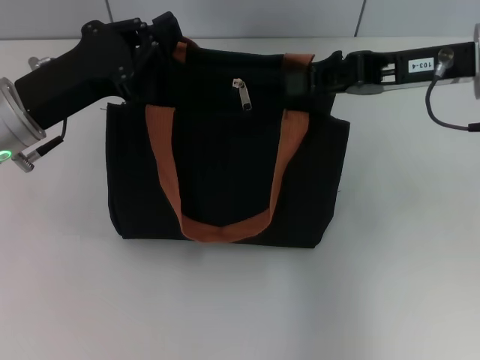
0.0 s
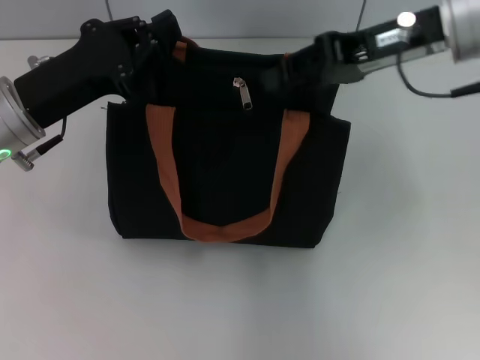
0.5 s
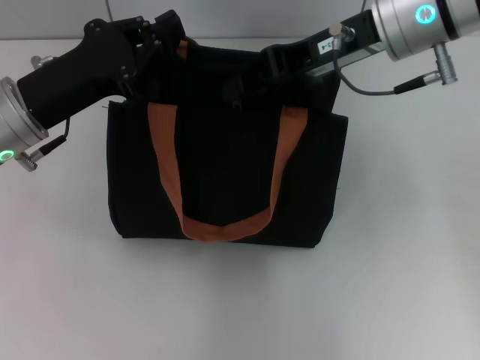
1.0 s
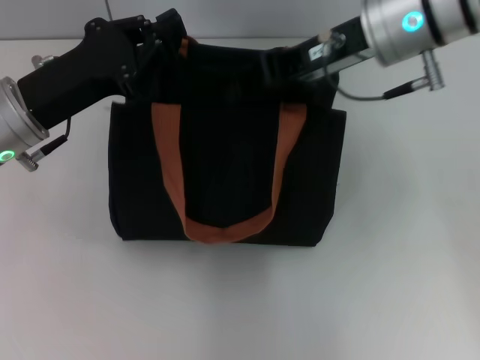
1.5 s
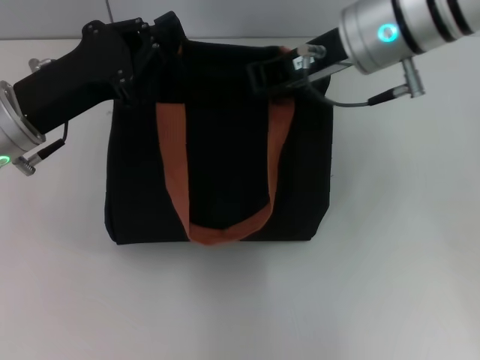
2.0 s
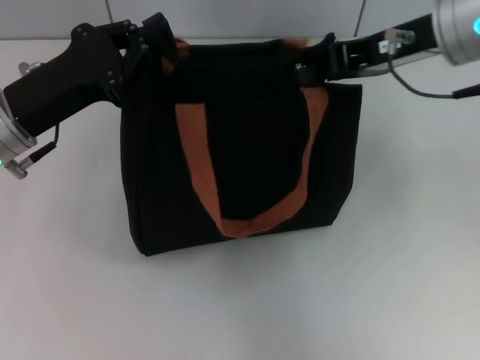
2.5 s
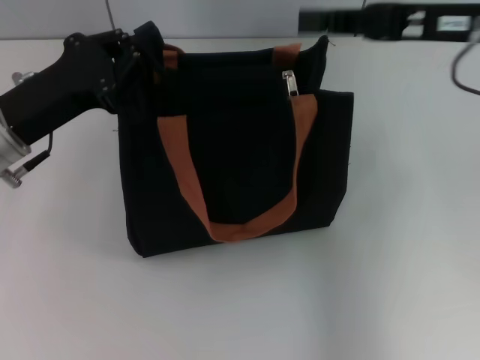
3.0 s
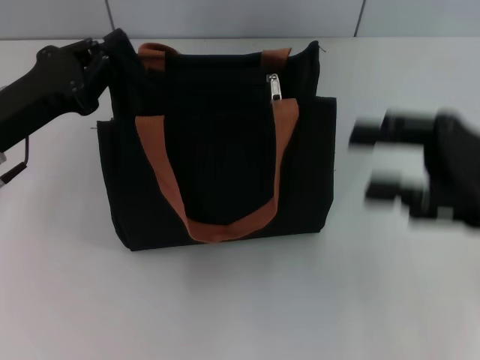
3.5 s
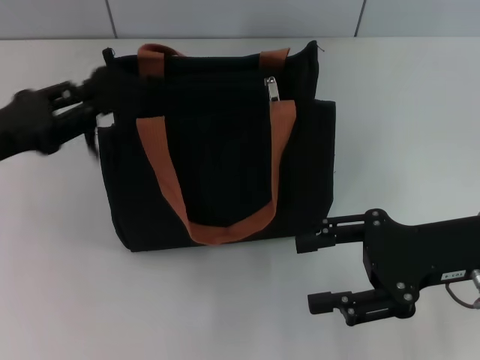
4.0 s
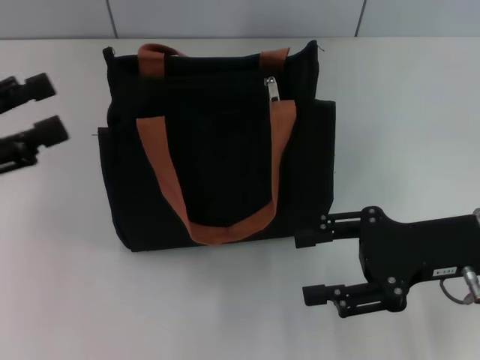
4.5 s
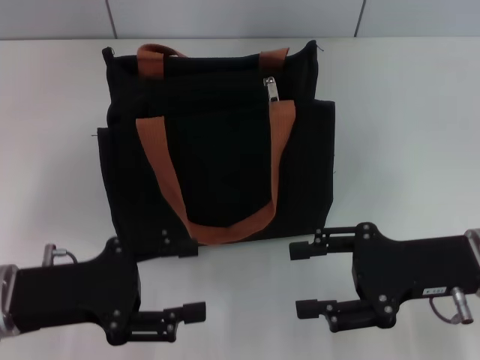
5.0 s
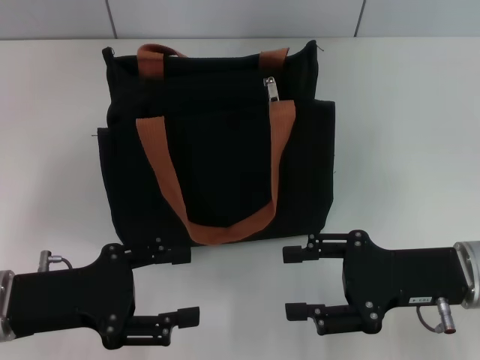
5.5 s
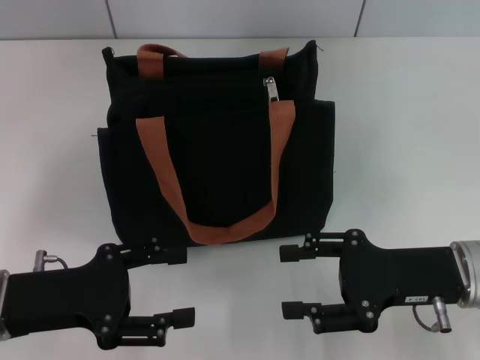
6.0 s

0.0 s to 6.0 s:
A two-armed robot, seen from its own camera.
Step, 0.0 to 2.5 s: Pull up the zipper with your right hand.
Step, 3.0 to 4.0 s: Grab the zipper with your left hand.
0.0 to 2.0 s: The right gripper goes roughly 10 cm to the left.
2.0 to 4.0 s: The left gripper moves to the left, about 10 cm; the right gripper moves backward, to the right and downward, about 20 cm, and opens up.
4.0 to 6.0 s: The left gripper heads backward and downward, covering about 10 cm, and opens up.
